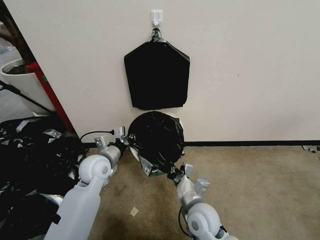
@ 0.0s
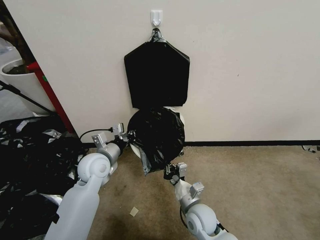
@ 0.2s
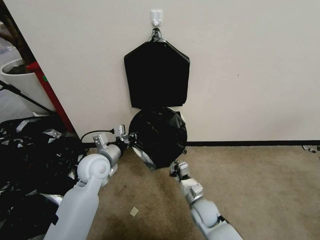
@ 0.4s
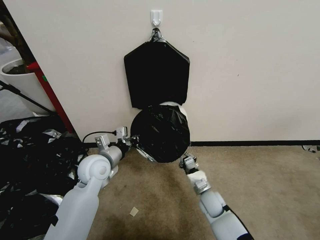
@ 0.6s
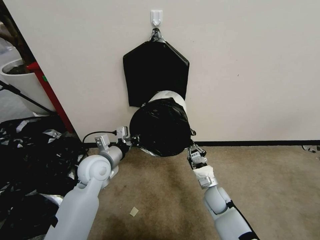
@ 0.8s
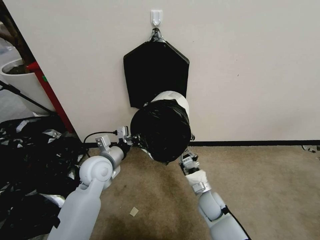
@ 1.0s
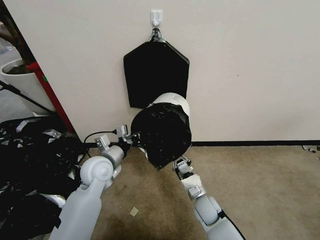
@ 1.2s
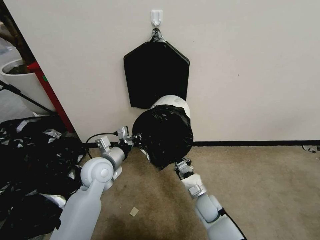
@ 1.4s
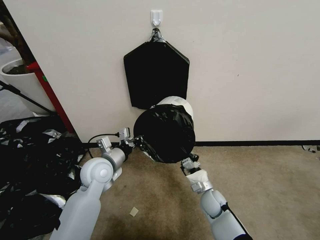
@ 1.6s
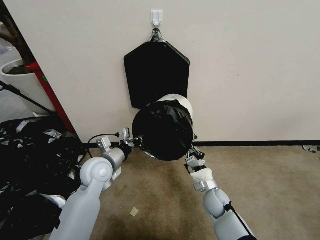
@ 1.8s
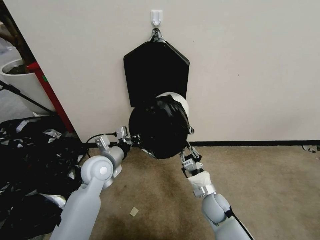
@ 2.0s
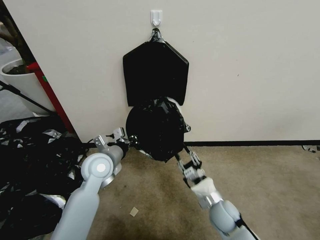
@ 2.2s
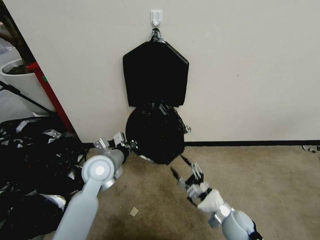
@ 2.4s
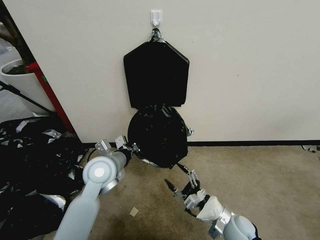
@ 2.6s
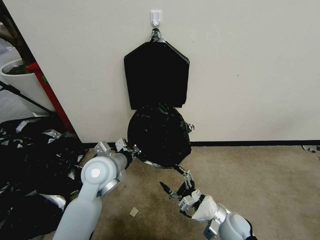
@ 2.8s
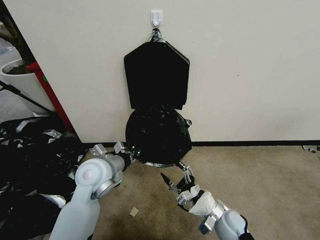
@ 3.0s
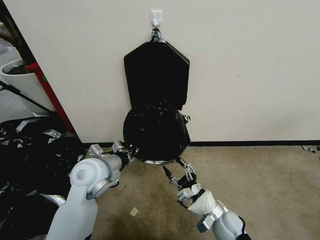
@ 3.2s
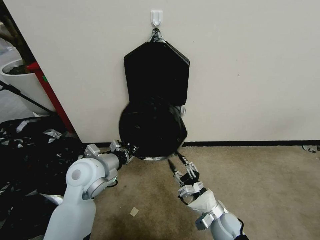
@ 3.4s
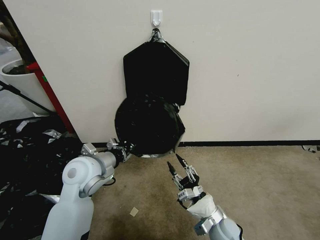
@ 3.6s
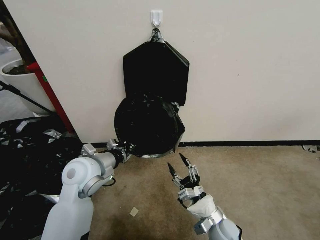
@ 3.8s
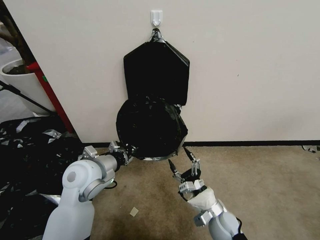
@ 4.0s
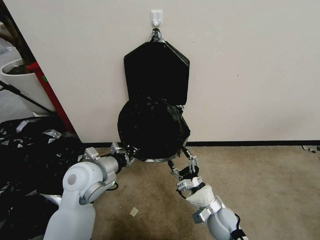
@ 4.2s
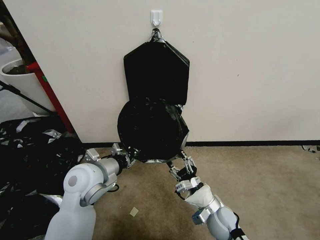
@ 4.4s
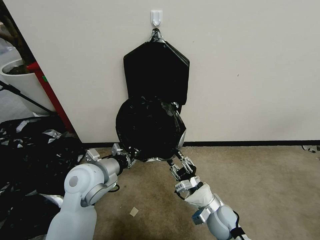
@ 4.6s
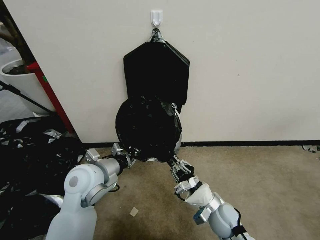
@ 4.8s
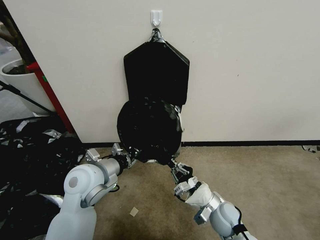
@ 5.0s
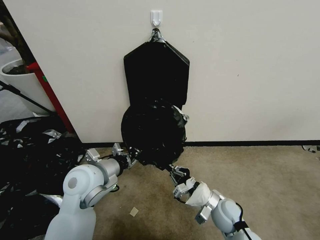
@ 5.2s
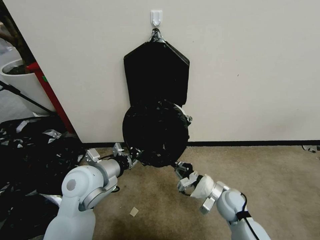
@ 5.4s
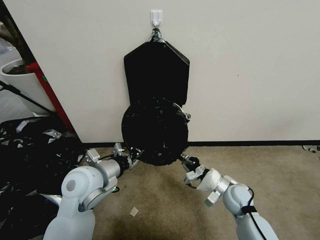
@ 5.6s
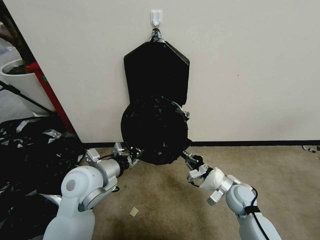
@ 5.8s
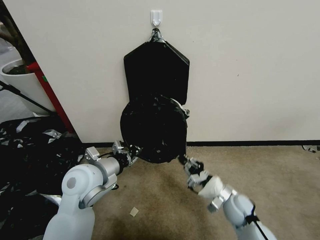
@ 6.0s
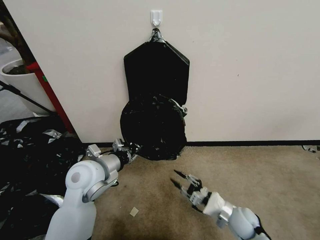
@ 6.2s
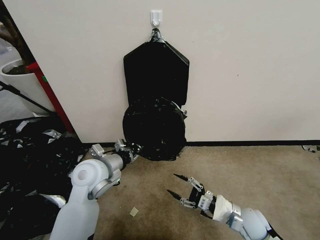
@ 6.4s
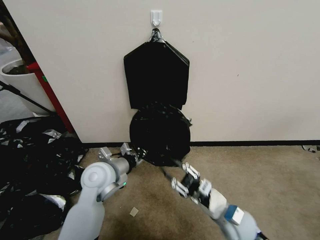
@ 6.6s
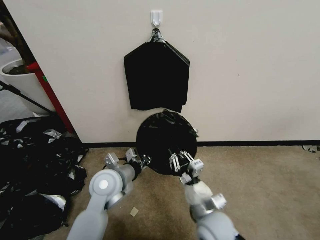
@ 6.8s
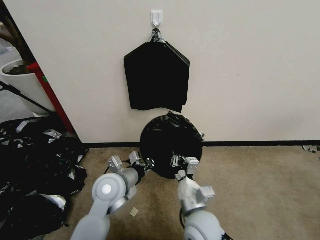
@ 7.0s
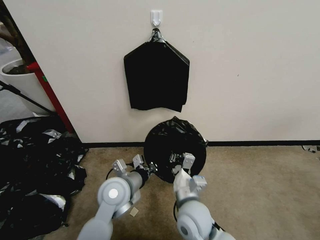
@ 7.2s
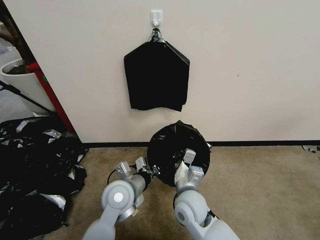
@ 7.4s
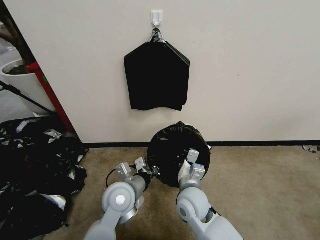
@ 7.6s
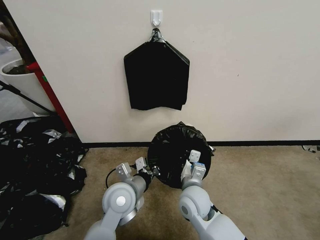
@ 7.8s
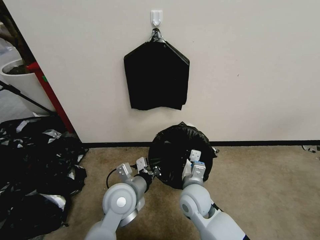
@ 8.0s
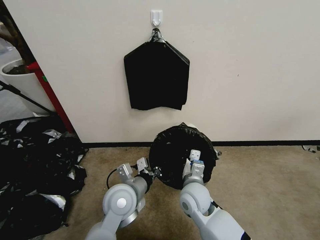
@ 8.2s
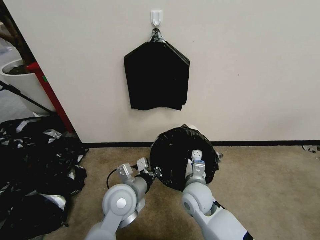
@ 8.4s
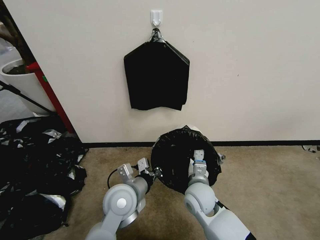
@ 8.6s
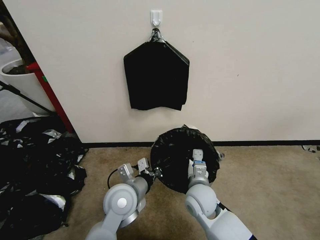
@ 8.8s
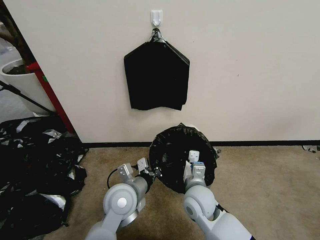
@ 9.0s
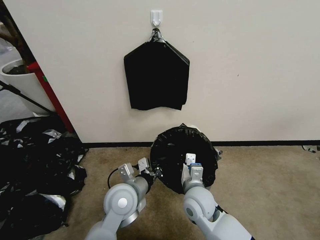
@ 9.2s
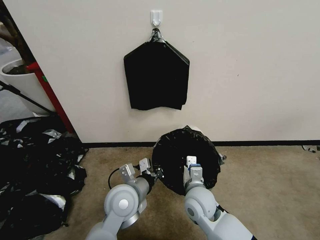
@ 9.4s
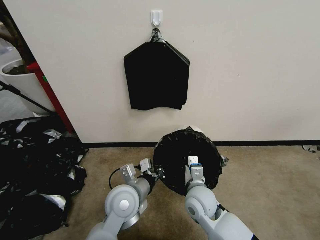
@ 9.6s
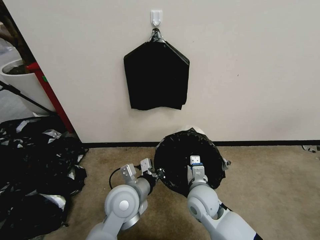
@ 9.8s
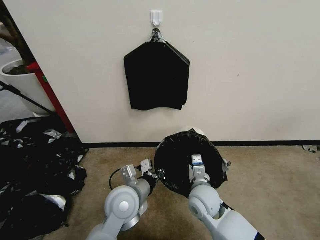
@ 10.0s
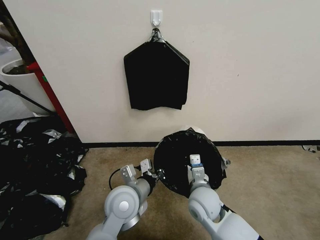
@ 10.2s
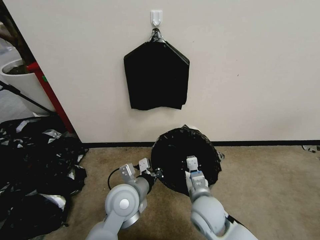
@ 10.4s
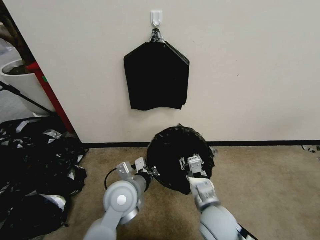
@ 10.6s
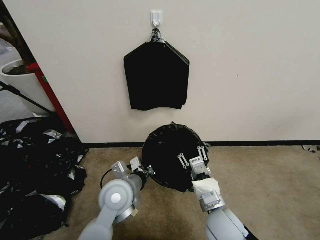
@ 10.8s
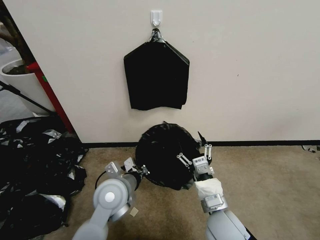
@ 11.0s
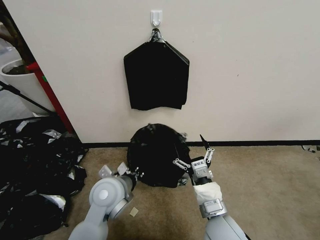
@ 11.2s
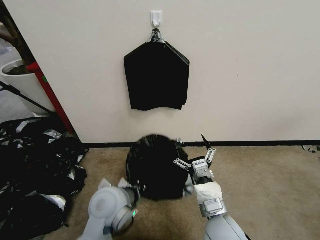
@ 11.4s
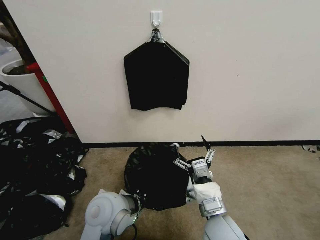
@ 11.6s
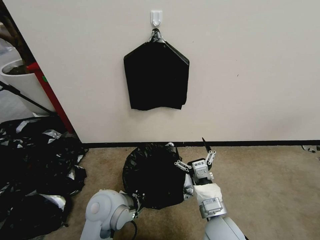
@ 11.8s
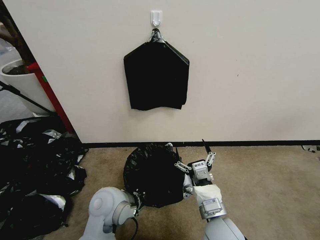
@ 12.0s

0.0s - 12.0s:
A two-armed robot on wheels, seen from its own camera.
Task of the whole recording: Place a trash bag onto the trash bin.
0.0s - 1.6s: The right gripper heads downward, to the right and forward, covering some 15 cm.
1.6s - 3.0s: The left gripper moves about 5 cm, while the right gripper moves backward and upward, about 10 cm, and opens.
3.0s - 4.4s: There are only small adjustments of the grippers.
4.4s - 6.0s: The right gripper goes approximately 5 cm to the right, and closes up.
6.0s - 7.6s: The right gripper travels to the left and upward by about 20 cm, and opens and closes again; the left gripper goes about 10 cm to the right and downward.
9.0s - 10.4s: The grippers move only a little.
10.4s - 12.0s: The right gripper heads backward, covering approximately 5 cm, and opens its fingers.

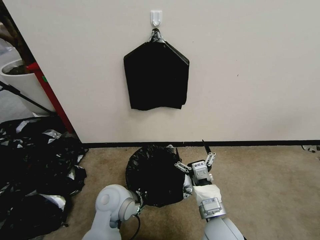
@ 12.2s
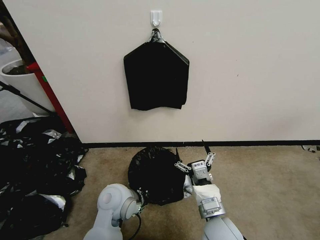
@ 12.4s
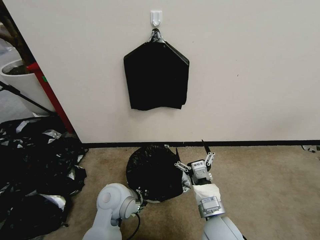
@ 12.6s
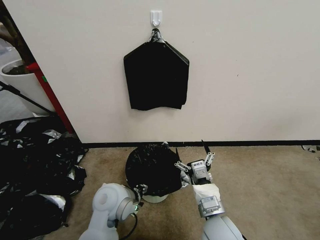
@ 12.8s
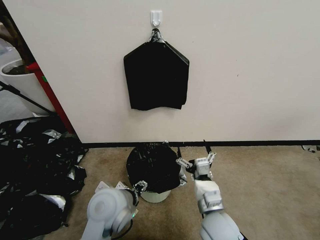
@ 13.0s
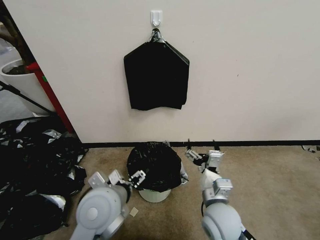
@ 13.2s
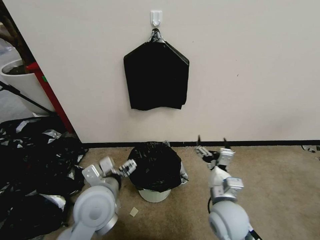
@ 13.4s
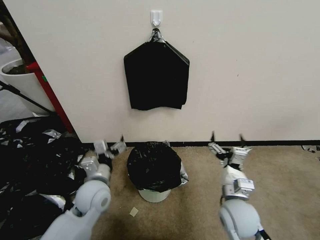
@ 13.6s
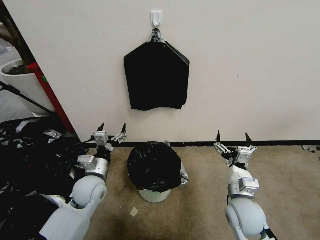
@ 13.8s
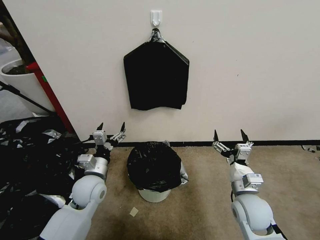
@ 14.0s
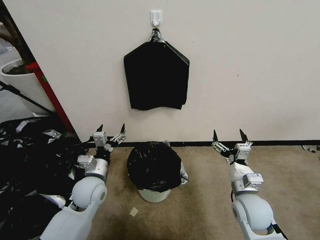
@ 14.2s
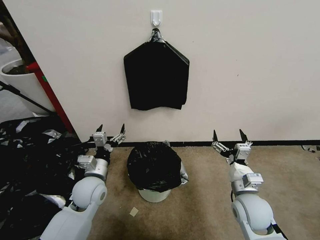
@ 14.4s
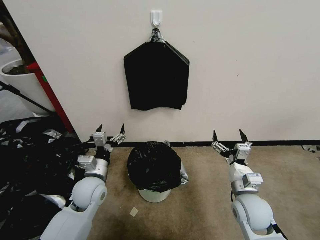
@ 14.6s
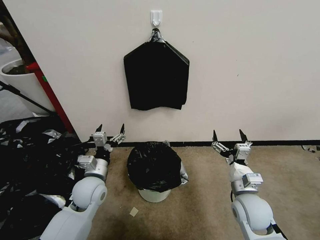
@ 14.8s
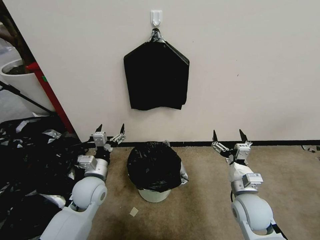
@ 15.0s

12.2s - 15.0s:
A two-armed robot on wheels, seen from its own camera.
Task of the whole recording: Place a trash bag onto the trash bin.
12.2s - 13.6s: The right gripper shifts some 10 cm to the right and forward. Meanwhile the left gripper is displaced to the left by about 10 cm, travels upward and back again, about 5 cm each way, and opens up.
13.6s - 15.0s: The grippers move only a little.

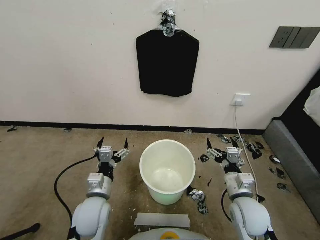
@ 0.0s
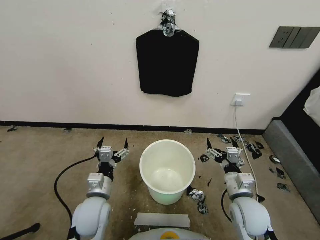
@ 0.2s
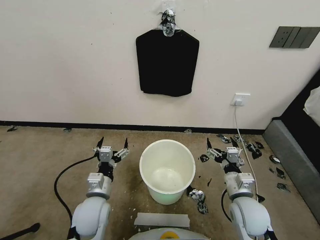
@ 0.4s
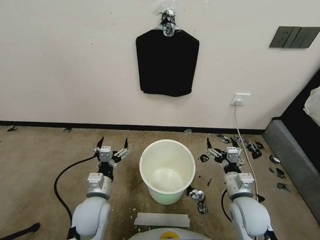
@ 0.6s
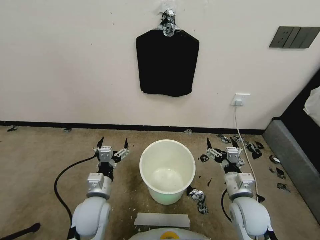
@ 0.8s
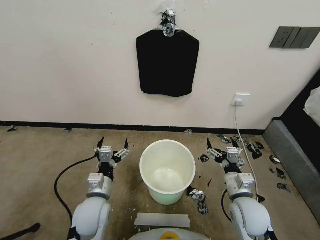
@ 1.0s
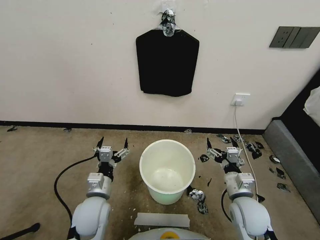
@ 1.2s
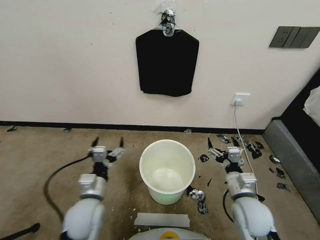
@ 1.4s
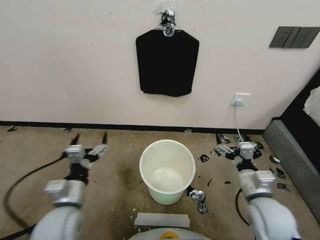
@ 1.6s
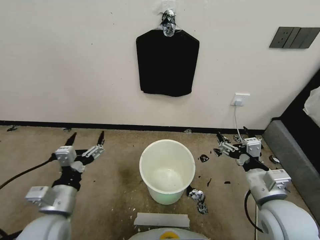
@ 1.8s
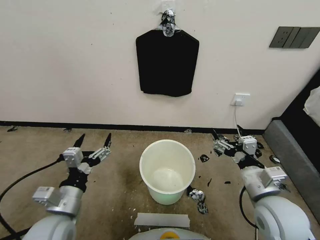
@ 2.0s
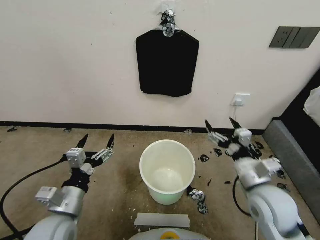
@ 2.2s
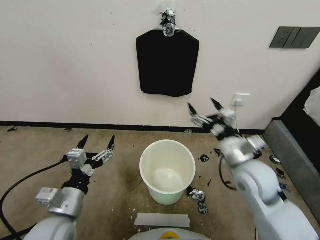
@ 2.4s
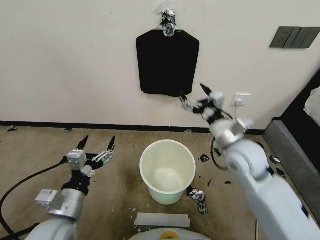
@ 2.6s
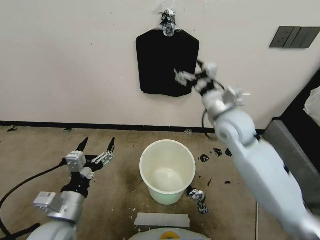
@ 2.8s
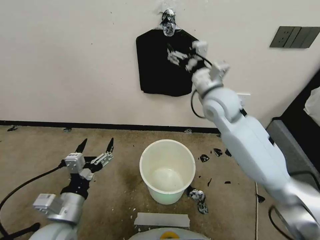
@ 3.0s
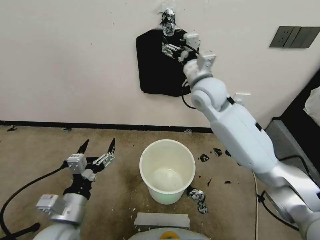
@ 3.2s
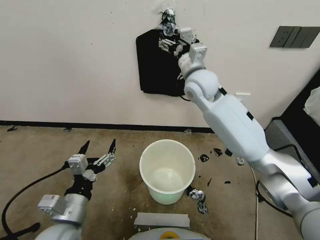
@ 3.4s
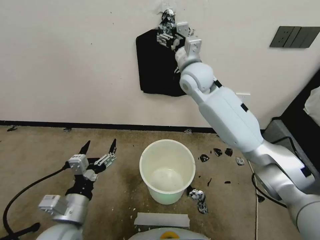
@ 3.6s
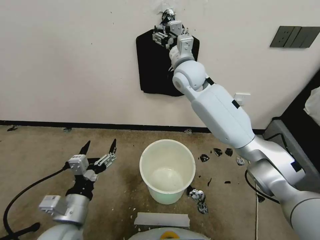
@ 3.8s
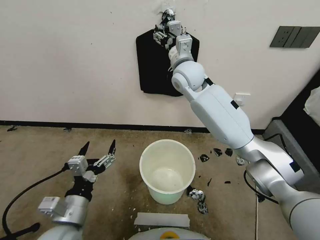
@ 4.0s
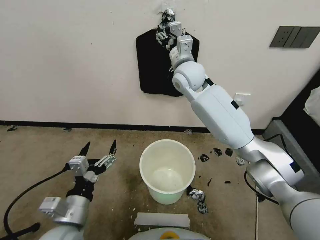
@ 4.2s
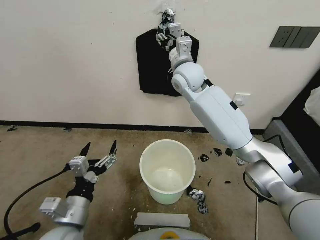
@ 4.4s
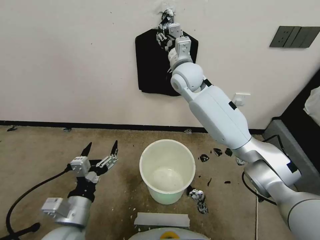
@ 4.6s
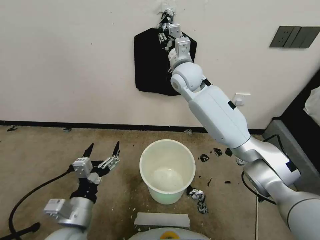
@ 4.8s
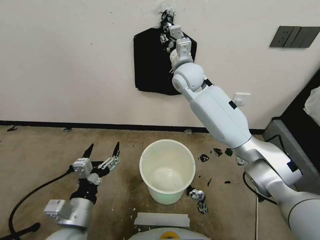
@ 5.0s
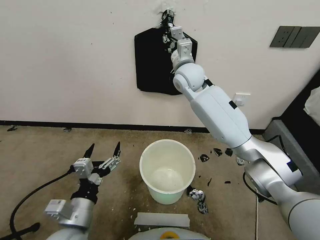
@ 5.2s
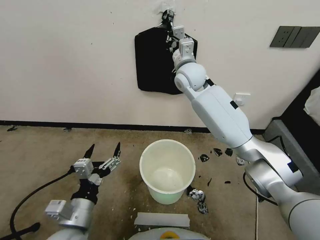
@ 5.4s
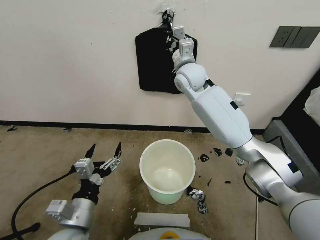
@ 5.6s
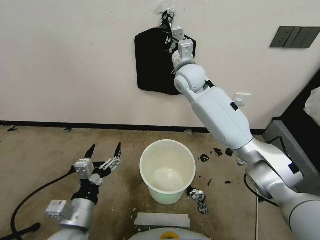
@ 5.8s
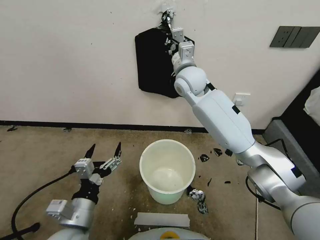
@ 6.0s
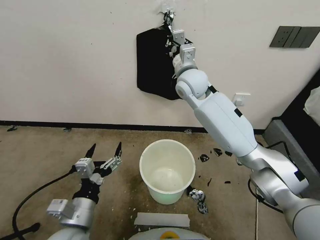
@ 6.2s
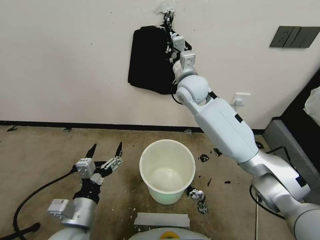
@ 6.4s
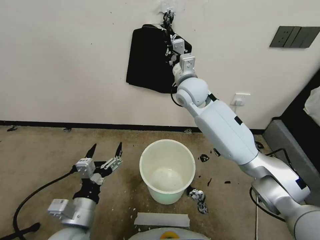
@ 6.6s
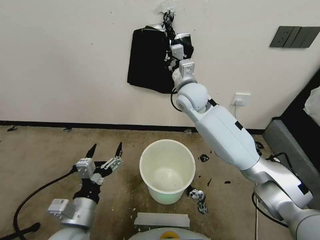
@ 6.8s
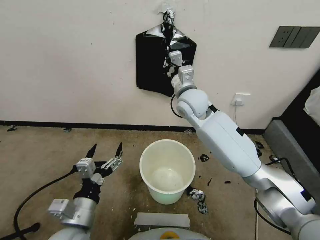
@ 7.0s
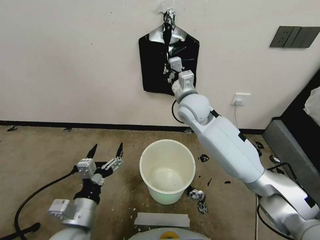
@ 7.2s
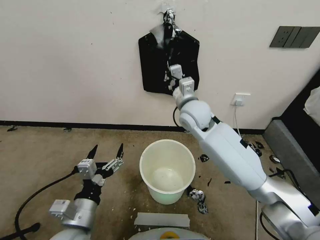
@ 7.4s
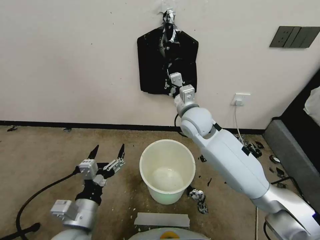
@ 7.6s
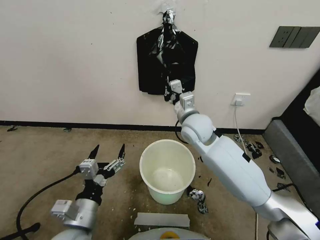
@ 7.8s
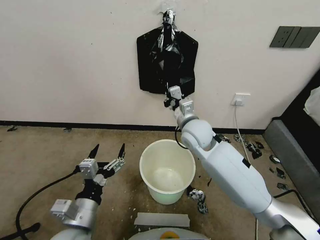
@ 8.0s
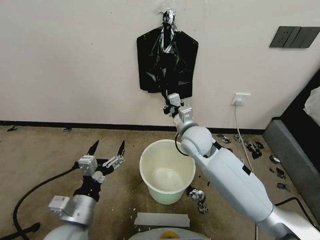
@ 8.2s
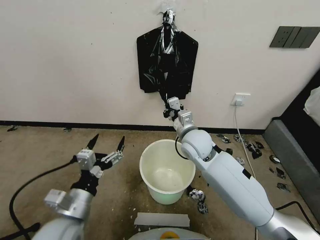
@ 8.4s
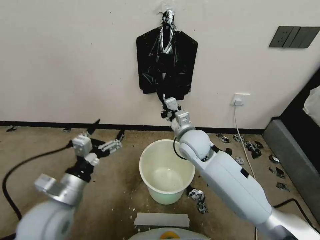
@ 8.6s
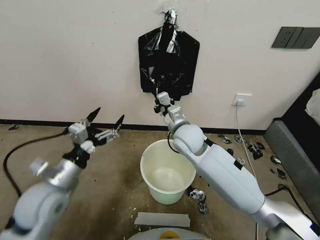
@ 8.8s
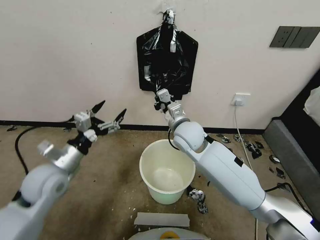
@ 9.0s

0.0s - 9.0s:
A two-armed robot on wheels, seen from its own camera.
Task of the whole recording: Place a trash bag onto the trash bin.
1.6s - 3.0s: The right gripper shifts some 30 cm forward, upward and to the left. Meanwhile the left gripper moves some 5 cm.
3.0s - 4.4s: The right gripper goes approximately 15 cm forward and to the left, and closes up.
4.4s - 6.0s: The right gripper closes its fingers.
6.0s - 7.6s: The right gripper goes about 15 cm downward and backward.
7.6s - 9.0s: The right gripper shifts by roughly 5 cm, while the left gripper heads forward and to the left, covering about 15 cm.
